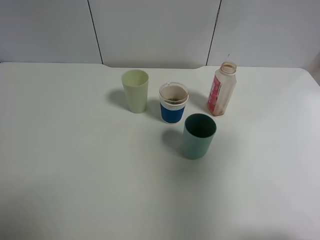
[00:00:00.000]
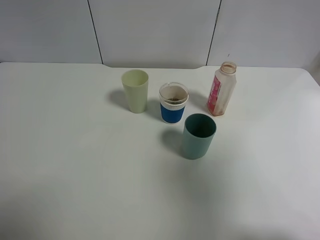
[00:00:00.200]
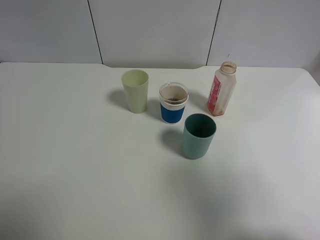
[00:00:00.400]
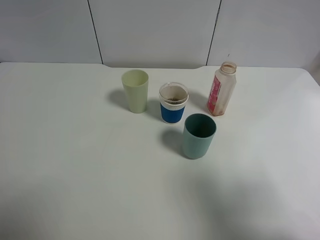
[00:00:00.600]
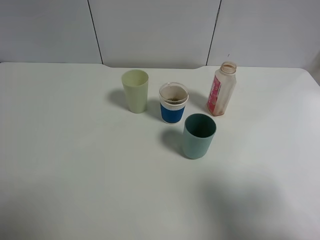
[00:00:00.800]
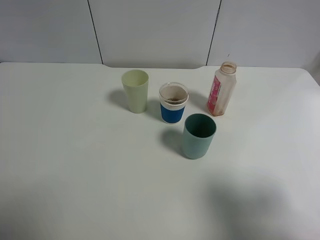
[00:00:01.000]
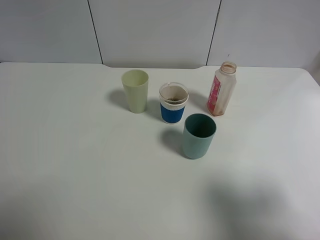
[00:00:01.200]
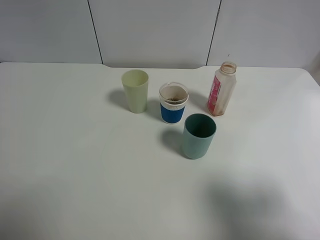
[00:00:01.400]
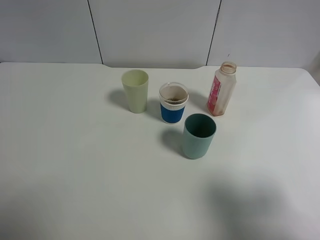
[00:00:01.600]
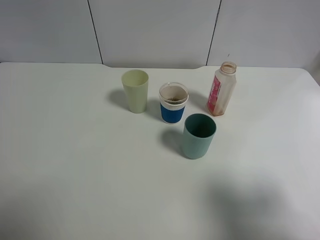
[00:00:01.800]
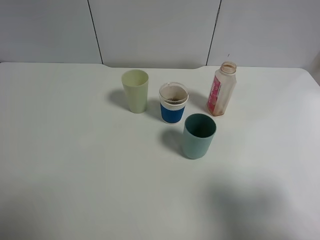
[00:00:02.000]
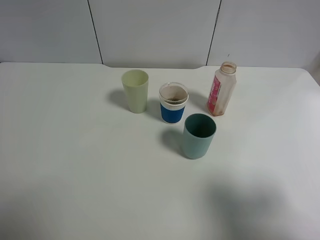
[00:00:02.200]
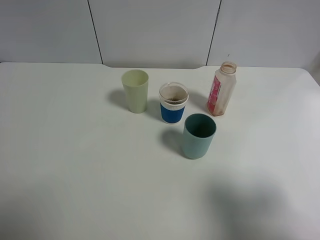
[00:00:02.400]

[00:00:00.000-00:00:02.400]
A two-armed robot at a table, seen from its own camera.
Task of the whole recording: use a gripper to hold the bottle of the drink and pour it into a random cup.
00:00:00.000 to 00:00:01.200: The right gripper is displaced downward by approximately 15 cm.
00:00:01.200 to 00:00:02.400: Both grippers stay put.
